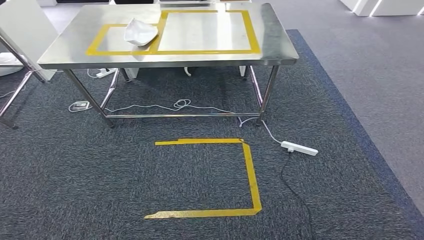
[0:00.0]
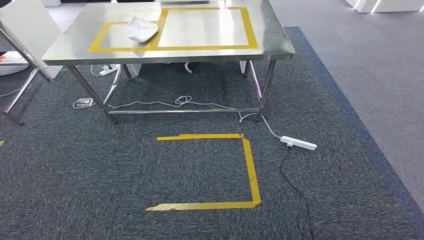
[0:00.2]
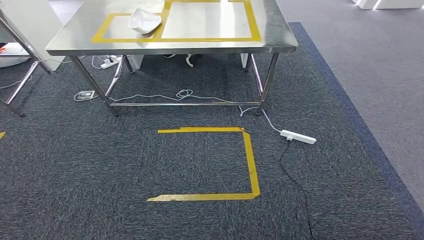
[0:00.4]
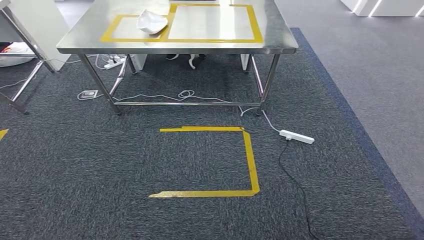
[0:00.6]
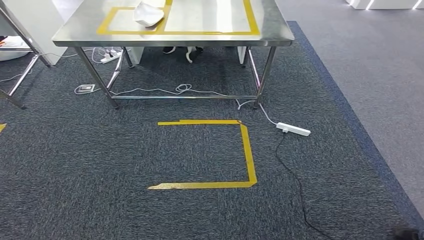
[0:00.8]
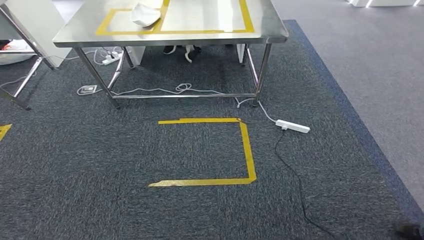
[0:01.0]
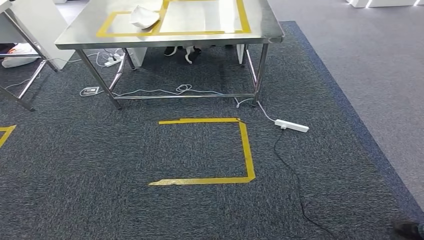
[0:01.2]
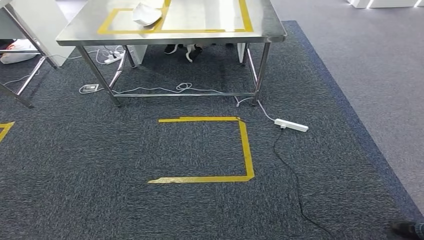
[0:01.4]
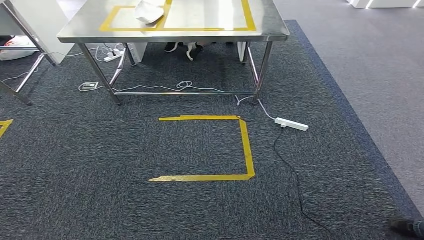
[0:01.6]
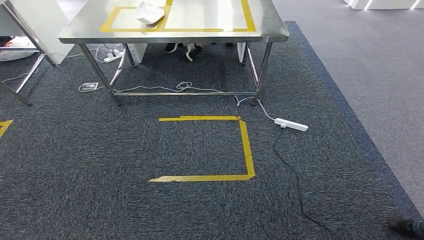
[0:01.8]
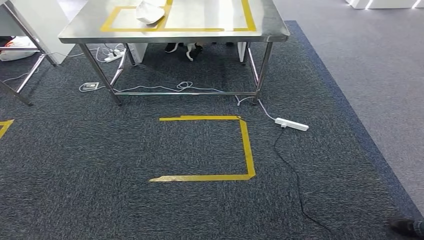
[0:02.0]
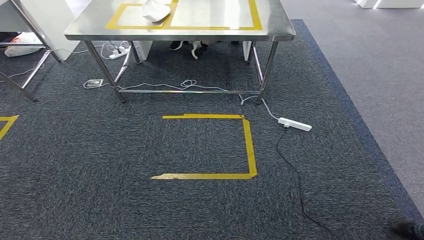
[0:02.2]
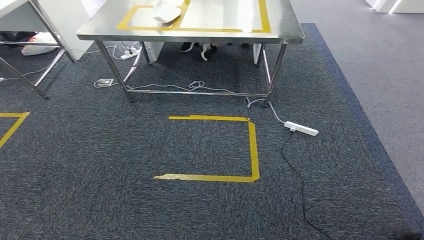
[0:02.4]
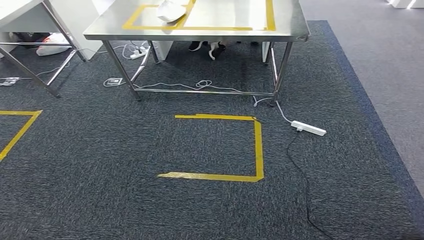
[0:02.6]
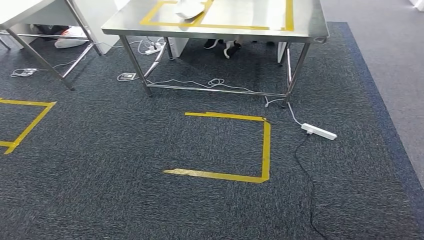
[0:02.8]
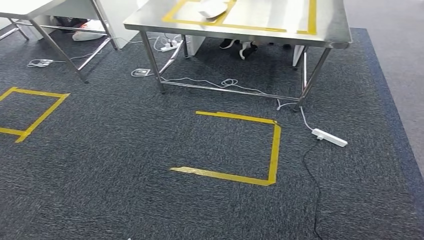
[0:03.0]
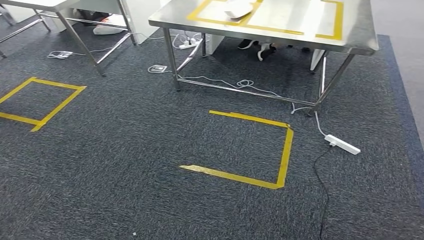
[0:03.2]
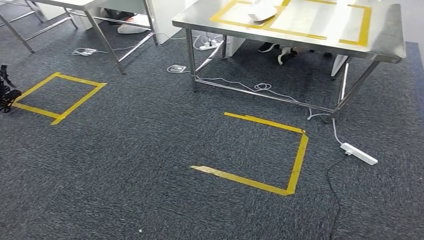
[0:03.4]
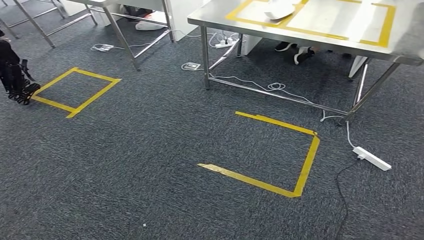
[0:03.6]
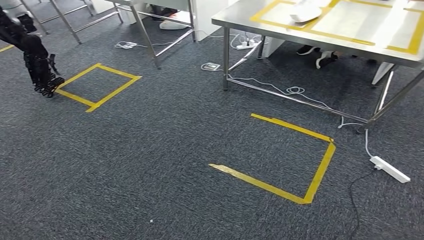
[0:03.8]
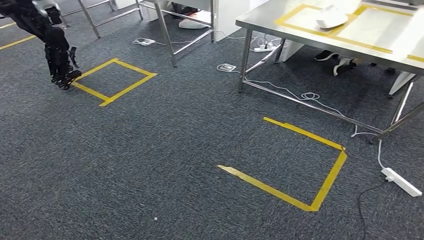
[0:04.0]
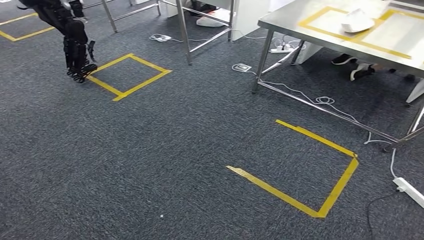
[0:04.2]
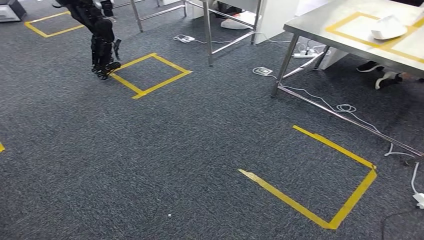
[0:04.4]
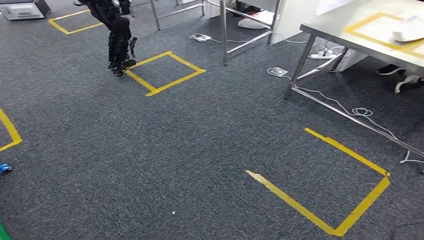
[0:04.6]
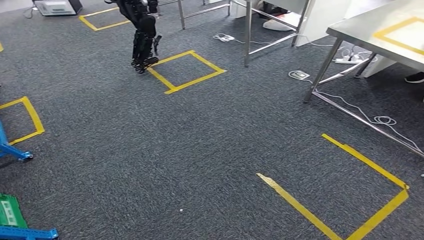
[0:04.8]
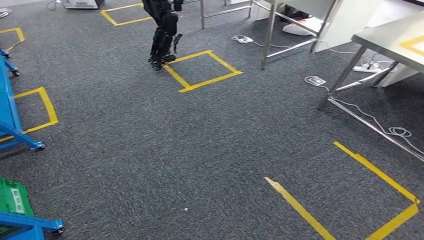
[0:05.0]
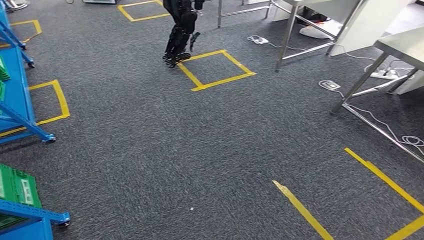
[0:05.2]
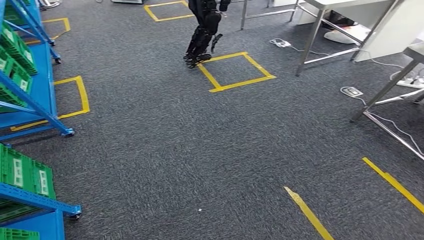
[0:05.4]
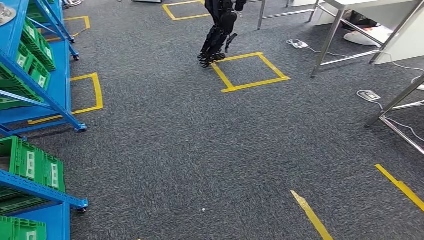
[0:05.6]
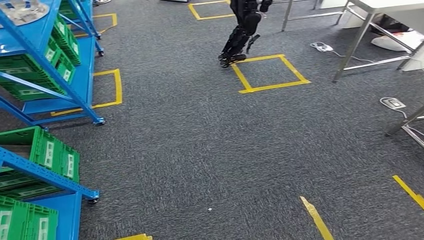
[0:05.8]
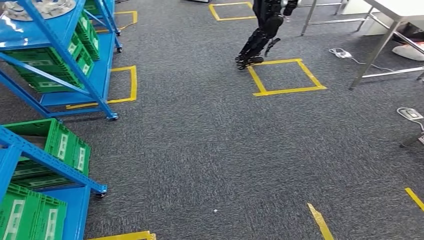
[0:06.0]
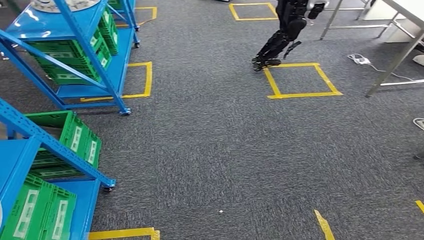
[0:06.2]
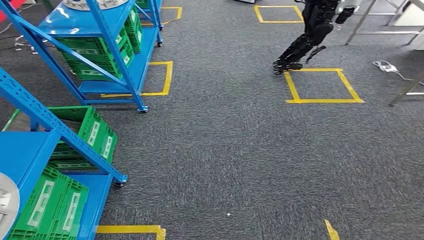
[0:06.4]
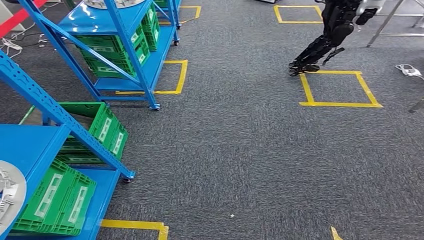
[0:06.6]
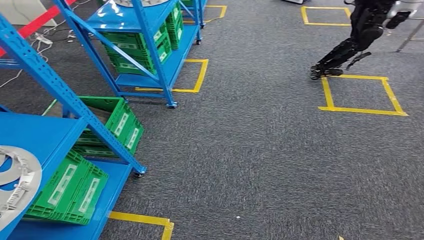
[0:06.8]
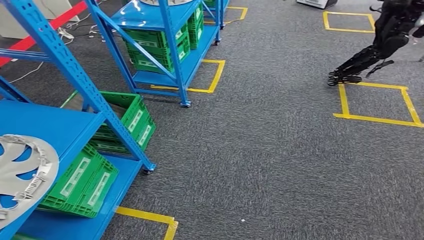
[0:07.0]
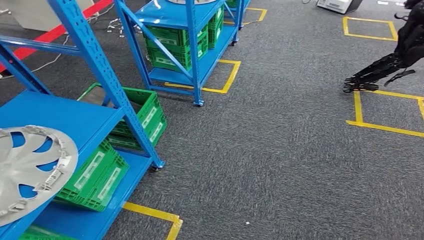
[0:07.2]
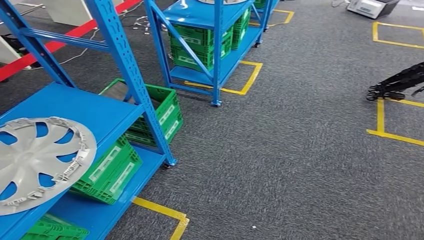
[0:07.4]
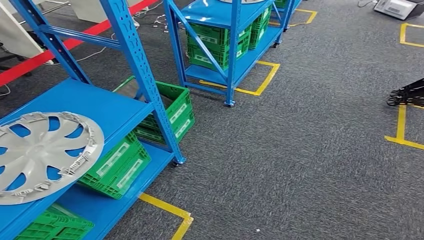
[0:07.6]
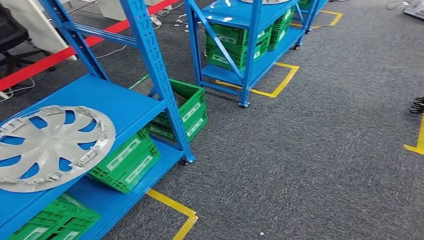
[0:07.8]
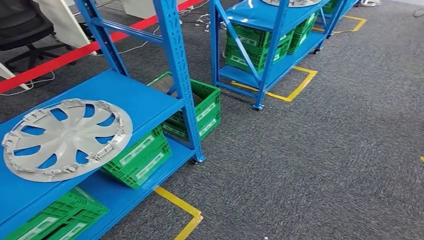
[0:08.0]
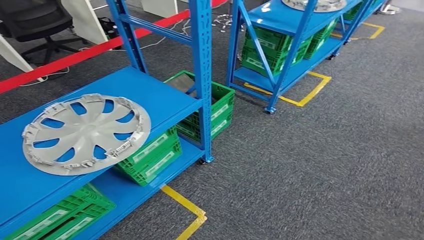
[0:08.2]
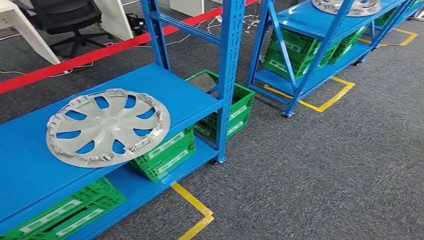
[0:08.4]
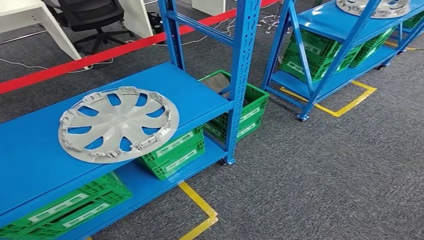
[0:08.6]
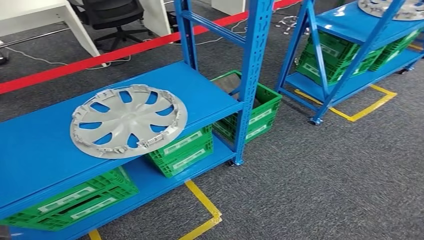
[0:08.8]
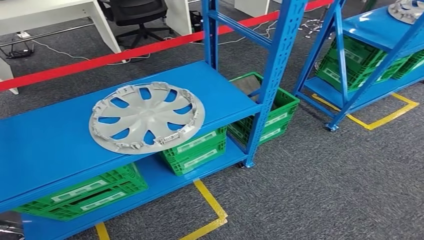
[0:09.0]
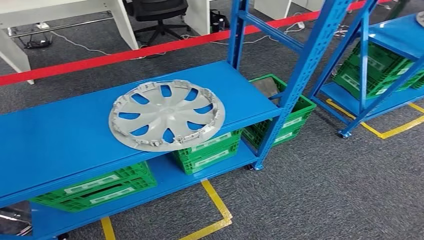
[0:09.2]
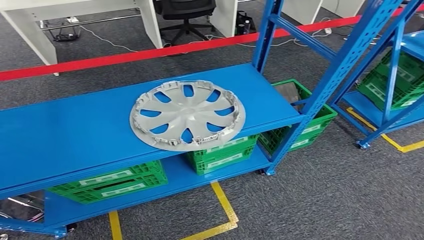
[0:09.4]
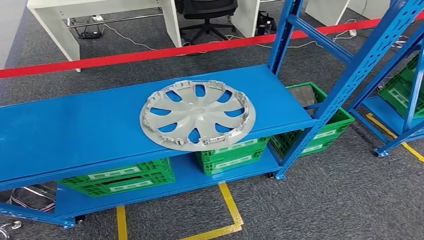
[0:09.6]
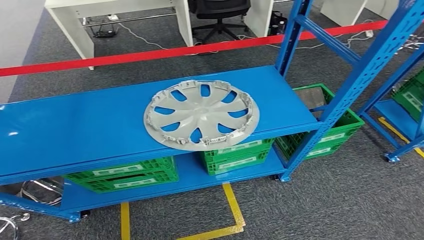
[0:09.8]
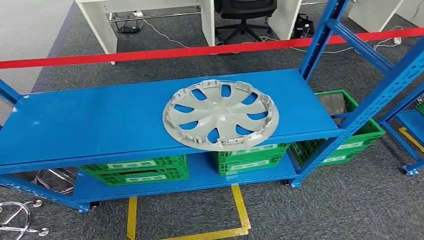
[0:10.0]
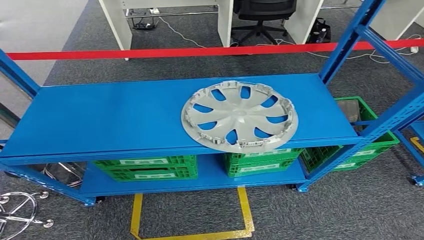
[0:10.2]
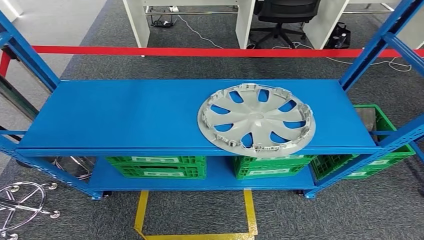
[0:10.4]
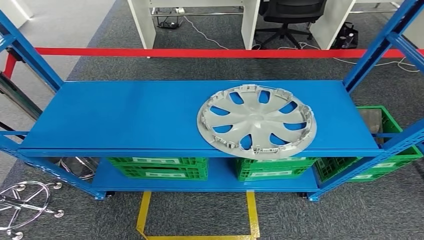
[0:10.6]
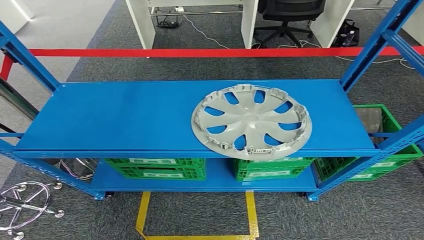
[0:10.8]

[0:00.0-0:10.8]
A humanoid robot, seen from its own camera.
Step, 0:00.0 to 0:10.8: Move to the initial position of the workbench.
